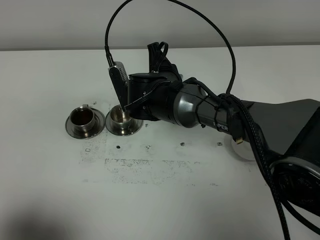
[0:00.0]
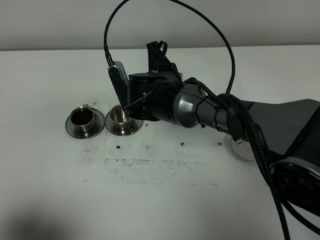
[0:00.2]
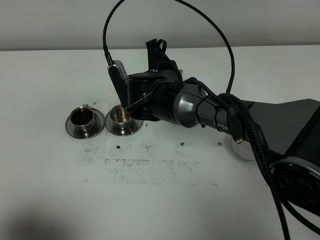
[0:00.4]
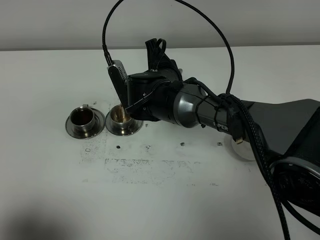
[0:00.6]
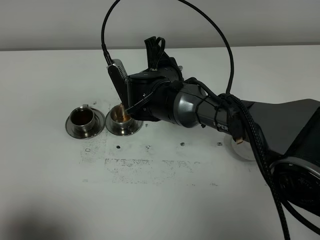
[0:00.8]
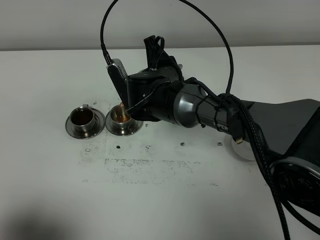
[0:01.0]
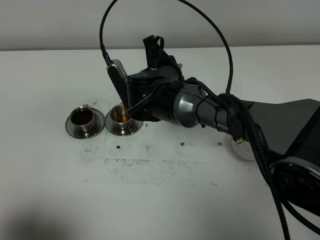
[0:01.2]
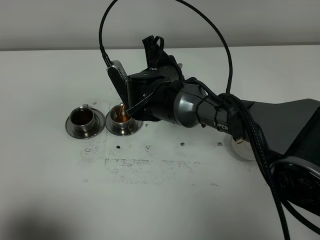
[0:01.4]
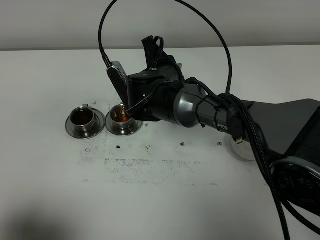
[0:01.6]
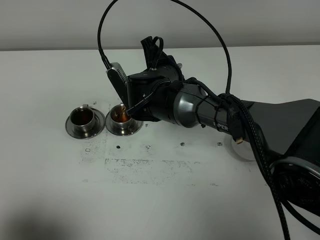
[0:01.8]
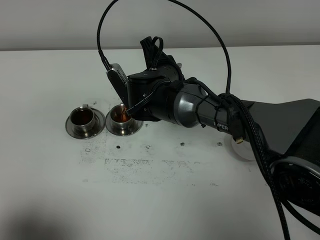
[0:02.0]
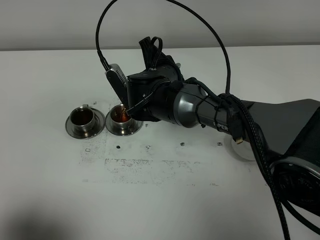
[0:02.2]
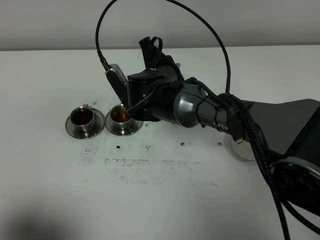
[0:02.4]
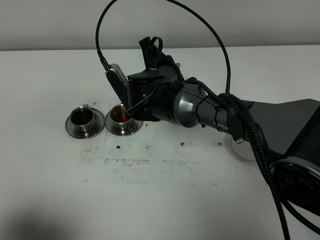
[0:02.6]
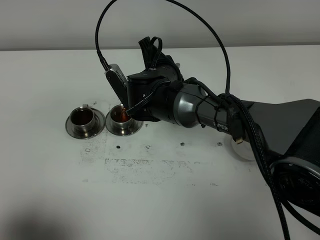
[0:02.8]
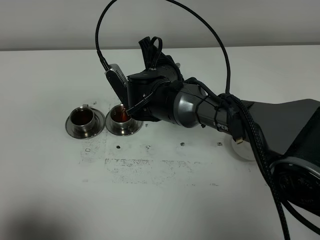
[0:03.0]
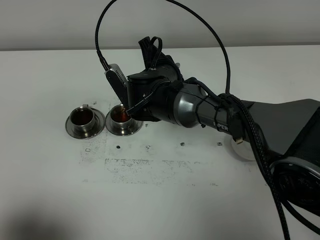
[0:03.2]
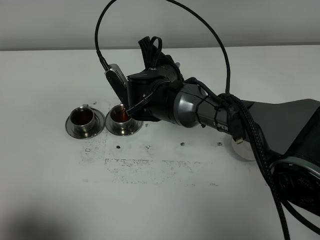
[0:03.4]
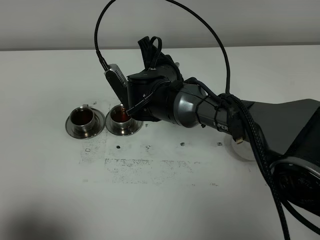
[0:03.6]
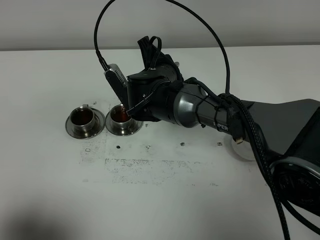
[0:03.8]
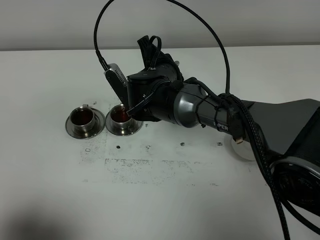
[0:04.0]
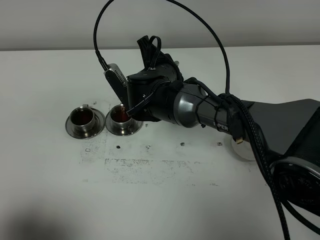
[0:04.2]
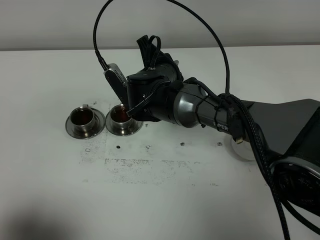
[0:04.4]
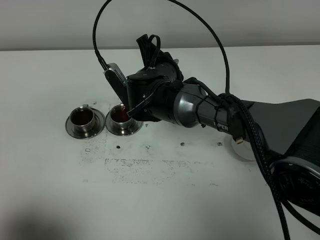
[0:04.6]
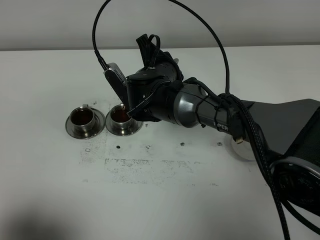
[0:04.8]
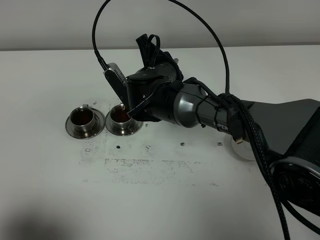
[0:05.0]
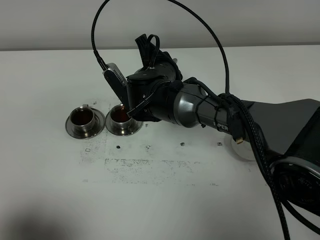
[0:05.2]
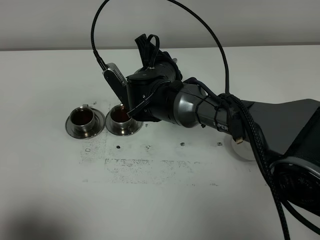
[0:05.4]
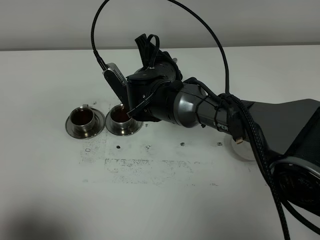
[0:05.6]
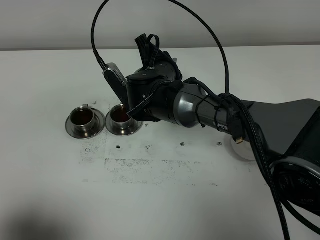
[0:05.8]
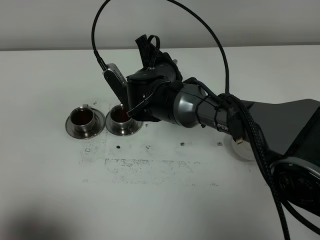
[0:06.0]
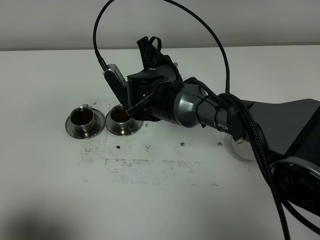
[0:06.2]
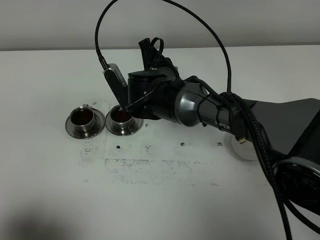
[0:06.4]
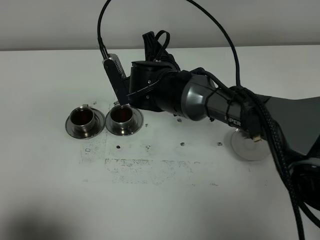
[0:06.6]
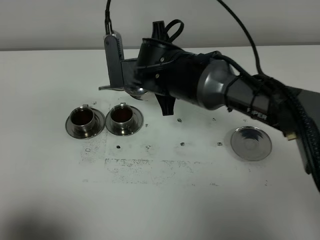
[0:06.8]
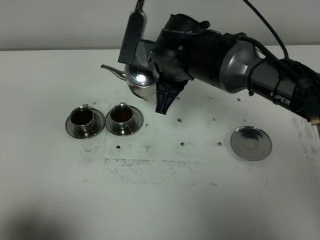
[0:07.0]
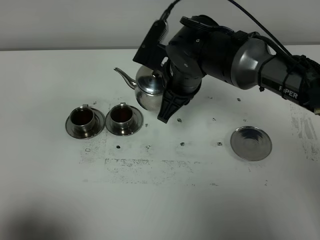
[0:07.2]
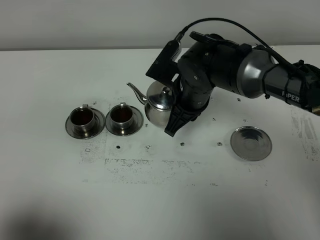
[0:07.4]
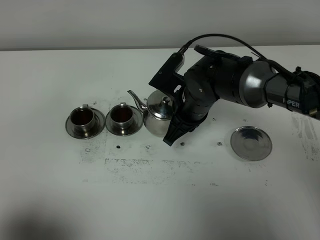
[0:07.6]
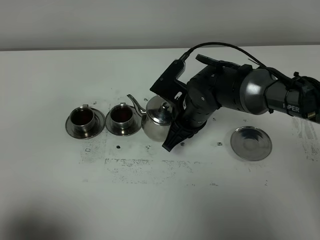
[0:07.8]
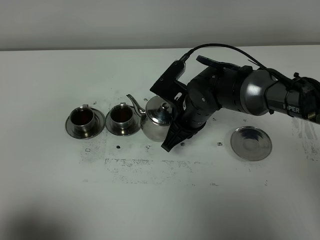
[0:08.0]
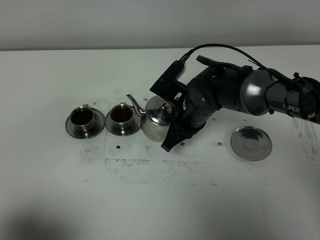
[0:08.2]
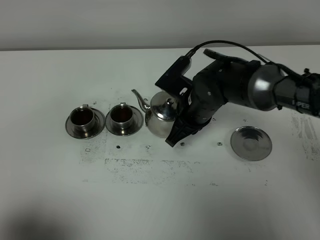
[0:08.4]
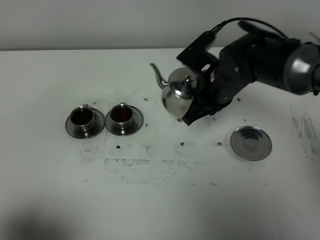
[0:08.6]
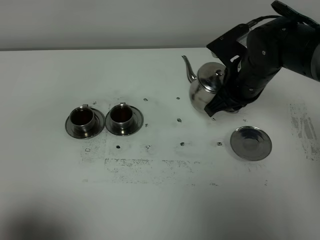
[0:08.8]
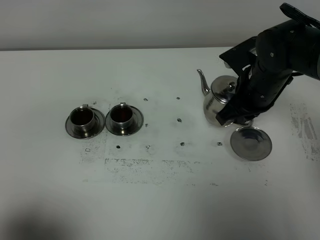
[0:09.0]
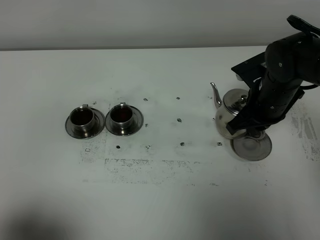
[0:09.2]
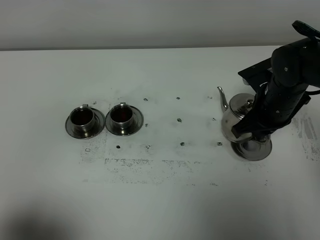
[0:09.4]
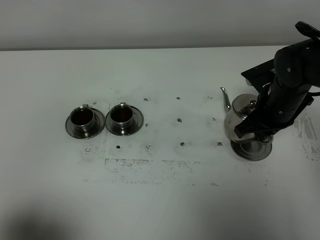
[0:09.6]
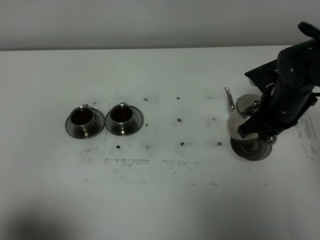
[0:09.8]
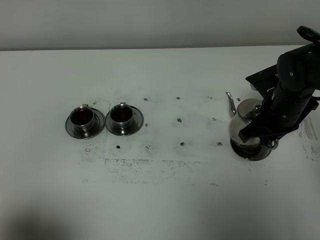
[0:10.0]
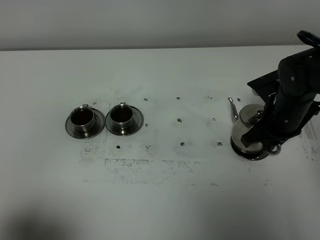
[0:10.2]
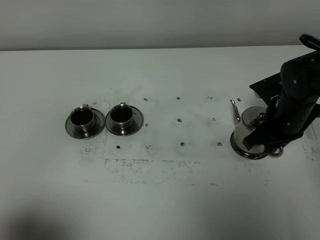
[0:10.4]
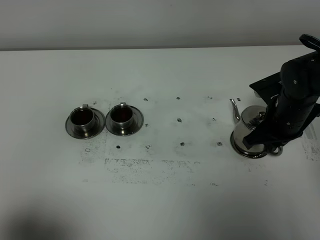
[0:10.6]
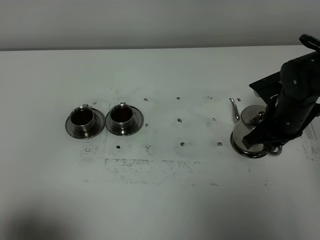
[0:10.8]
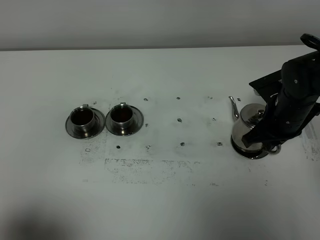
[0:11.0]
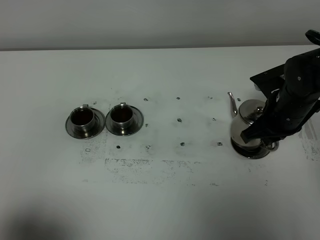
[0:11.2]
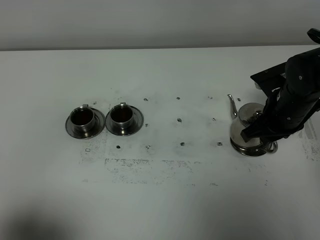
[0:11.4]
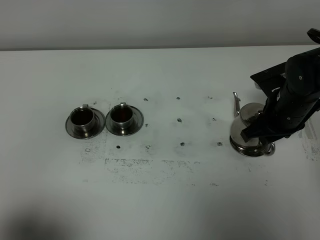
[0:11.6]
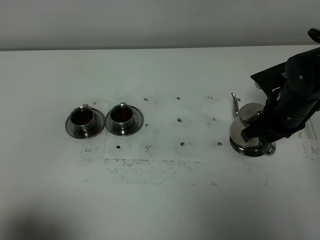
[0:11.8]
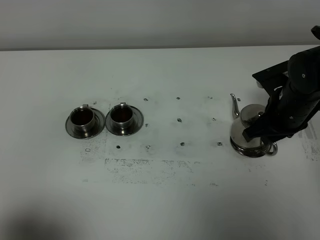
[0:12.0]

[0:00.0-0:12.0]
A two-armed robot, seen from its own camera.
Task of the whole recording: grasp the stainless steel teapot and pour the tea into the two stainless steel teacups one by one, put the stainless steel teapot back in its original place.
Step, 0:00.0 to 0:06.6: Pour tea into the teacup with the right gripper.
0:00.0 to 0:01.6: The grippers make only small movements.
0:01.6 to 0:04.4: Neither gripper changes place.
0:04.4 to 0:06.0: Both grippers stay put.
0:06.0 to 0:07.6: The right gripper travels to the right by about 5 cm, and moves roughly 5 cm upward and comes back.
0:07.6 to 0:09.0: The right gripper shifts approximately 10 cm to the right.
0:09.0 to 0:10.4: The right gripper shifts by about 5 cm.
0:10.4 to 0:12.0: The right gripper opens up.

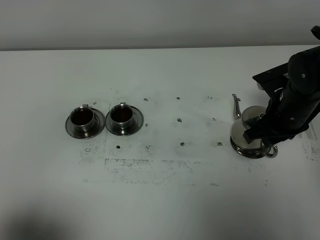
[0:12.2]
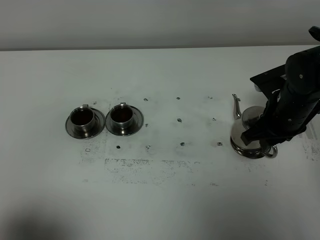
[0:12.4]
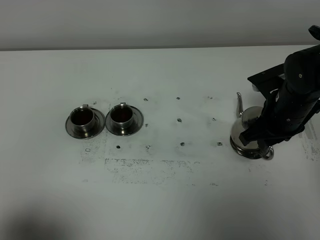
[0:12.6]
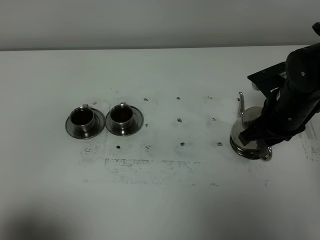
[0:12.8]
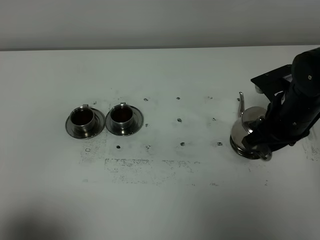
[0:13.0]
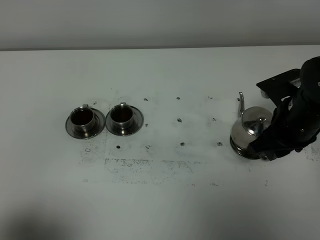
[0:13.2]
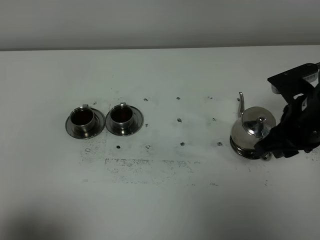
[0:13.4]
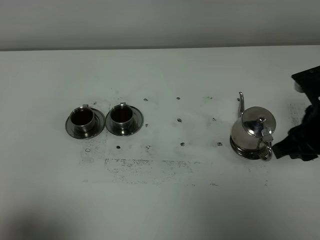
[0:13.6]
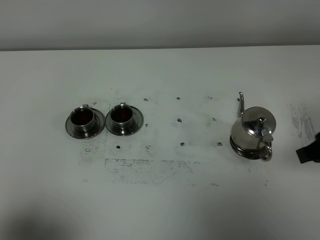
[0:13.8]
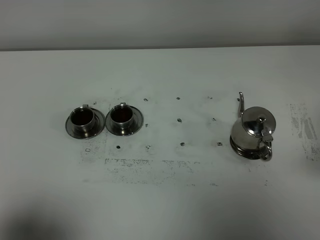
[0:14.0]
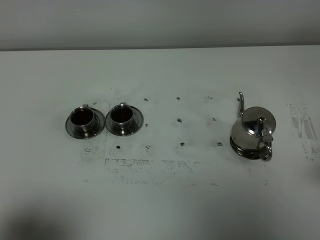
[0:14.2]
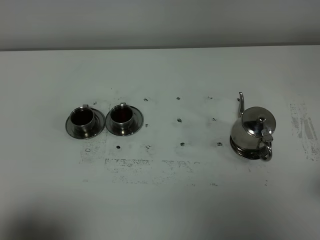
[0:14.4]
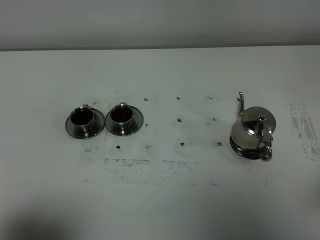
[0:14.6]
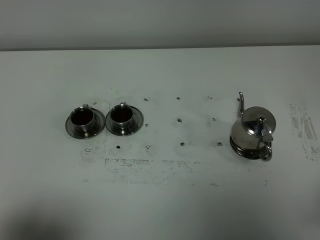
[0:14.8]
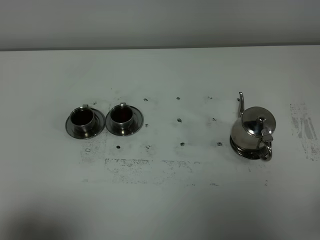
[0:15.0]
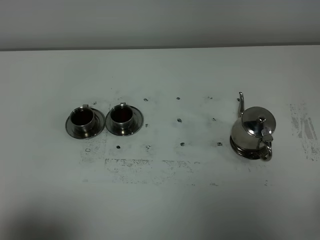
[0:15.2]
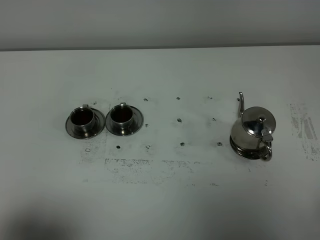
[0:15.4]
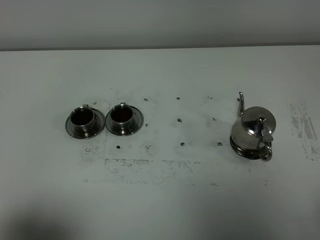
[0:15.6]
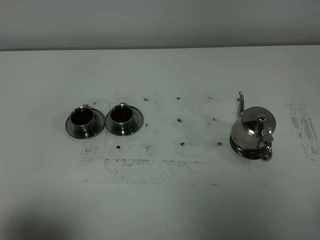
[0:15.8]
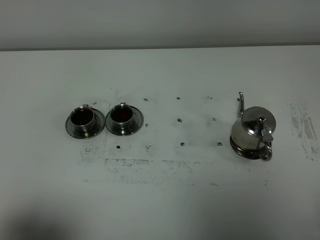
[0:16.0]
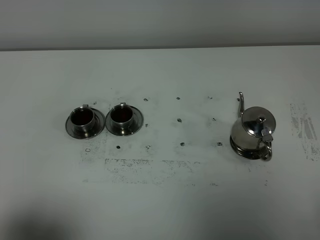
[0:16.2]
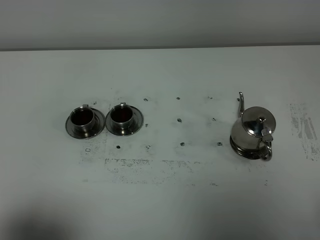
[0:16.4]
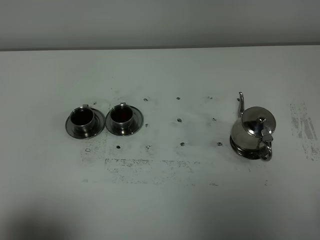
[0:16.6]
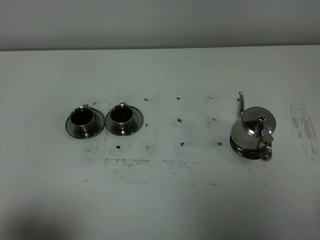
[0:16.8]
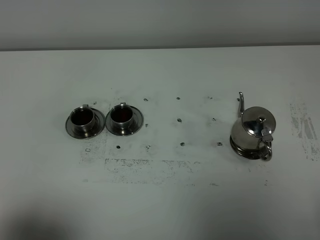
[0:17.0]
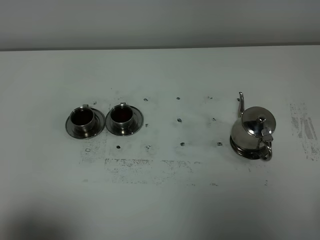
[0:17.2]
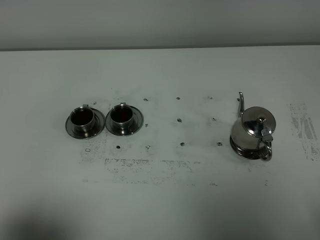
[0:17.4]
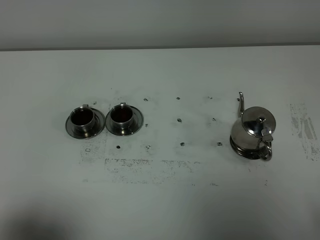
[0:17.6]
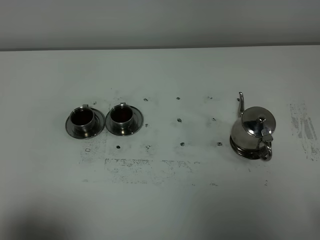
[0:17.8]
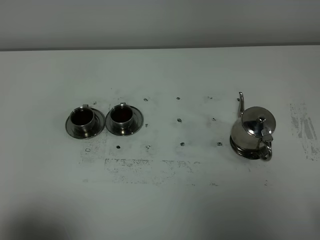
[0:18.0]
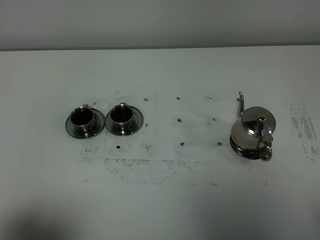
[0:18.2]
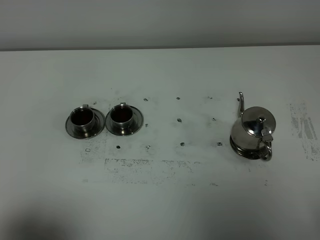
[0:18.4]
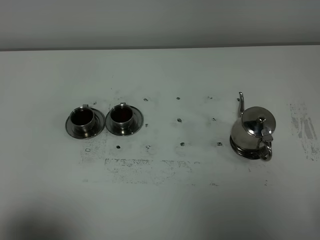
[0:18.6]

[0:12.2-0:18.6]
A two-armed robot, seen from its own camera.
Task of the whole recording: grasp the stainless steel teapot and pour the tea into the two stainless steel teacups one by one, put the stainless steel teapot back in its original place.
0:12.2 to 0:13.8: The right gripper goes approximately 15 cm backward and upward.
0:13.8 to 0:15.4: The right gripper heads backward, covering about 20 cm.
